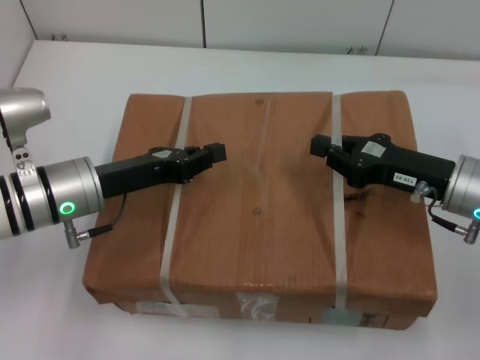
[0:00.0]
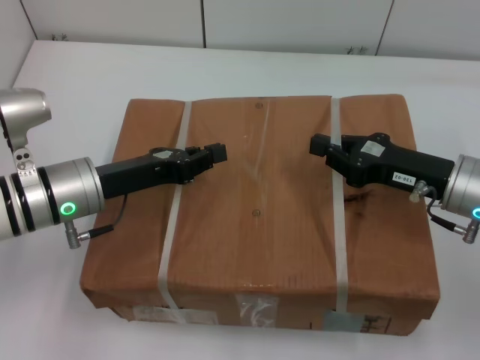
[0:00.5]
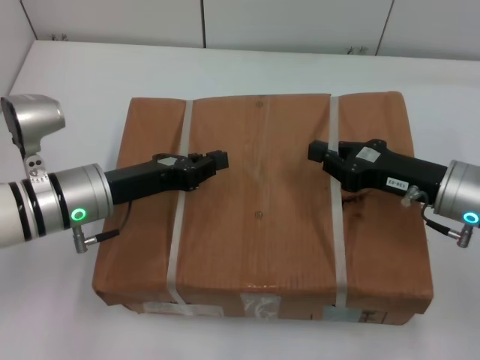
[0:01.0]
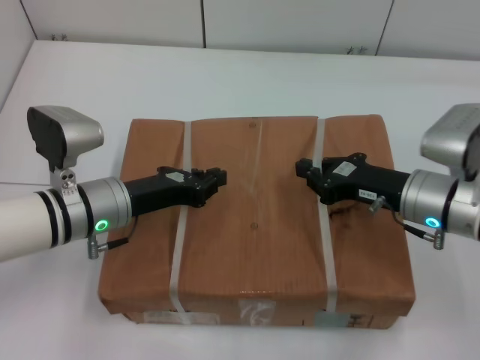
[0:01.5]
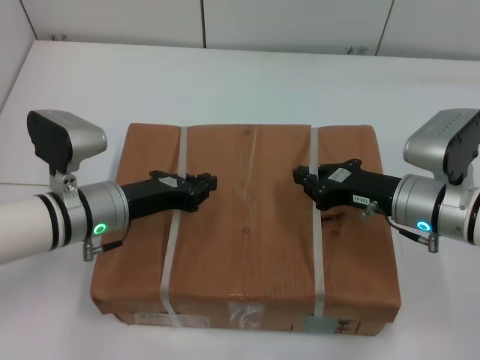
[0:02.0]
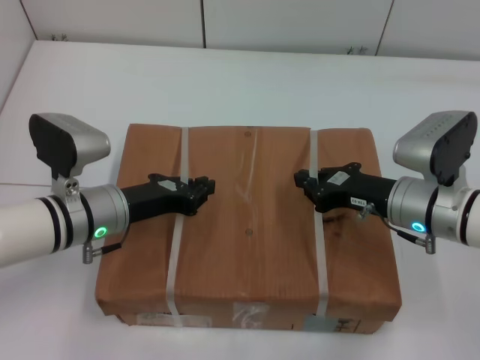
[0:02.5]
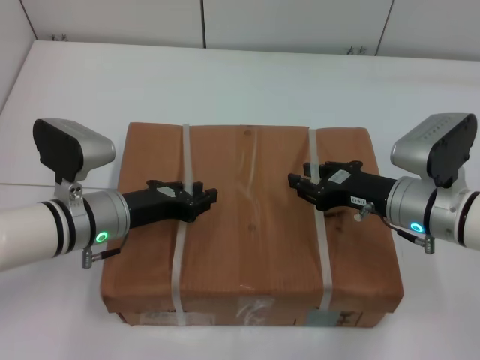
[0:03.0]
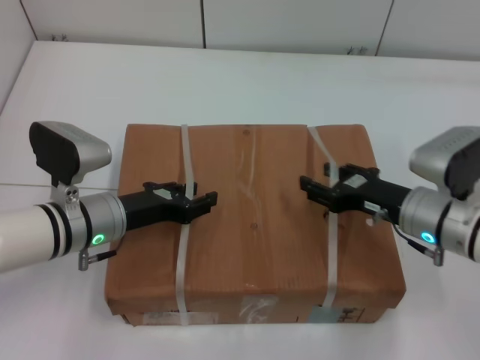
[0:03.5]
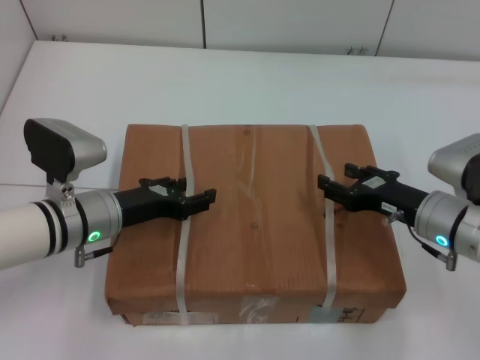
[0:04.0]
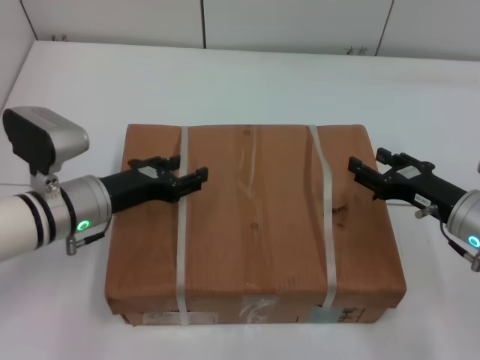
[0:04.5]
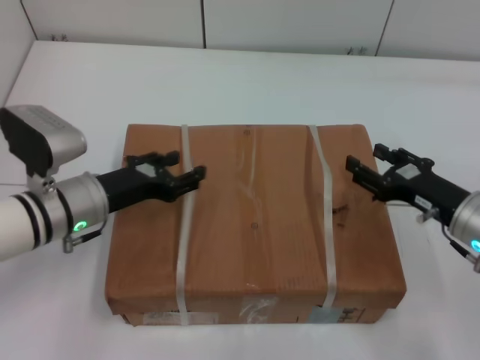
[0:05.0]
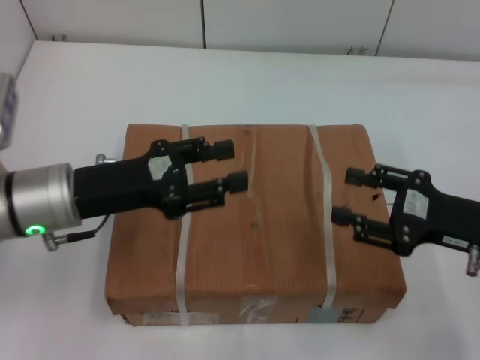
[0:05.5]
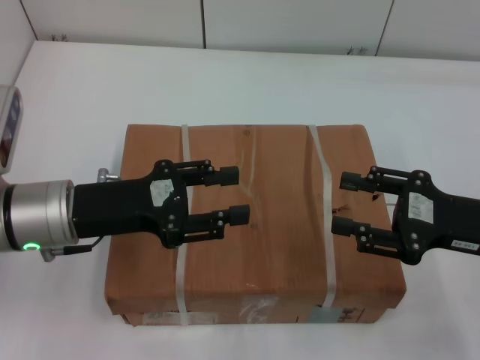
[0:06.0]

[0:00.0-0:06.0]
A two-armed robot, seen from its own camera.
Task of the whole recording: place the box on the table with both arms.
Step, 0:00.0 to 0:02.0: Place the box on the table with left gripper.
Step, 0:00.0 to 0:02.0: Place the box on the table with right gripper.
Step, 0:02.5 to 0:03.5: Loosen the box on the table with left gripper.
Step, 0:02.5 to 0:03.5: Loosen the box on the table with right gripper.
0:00.0 to 0:02.0: The right gripper moves some 5 cm.
0:02.0 to 0:04.0: The left gripper opens its fingers. The right gripper opens.
0:04.0 to 0:06.0: Both grippers travel together upward, some 10 cm.
